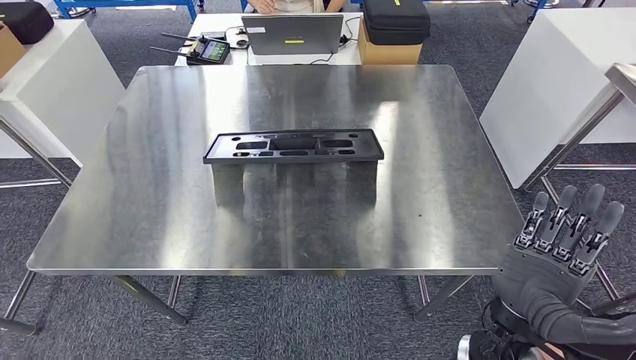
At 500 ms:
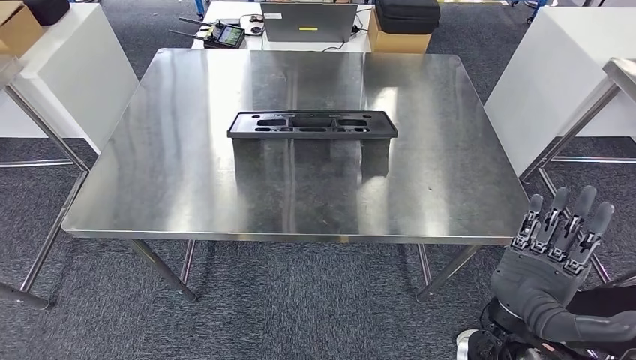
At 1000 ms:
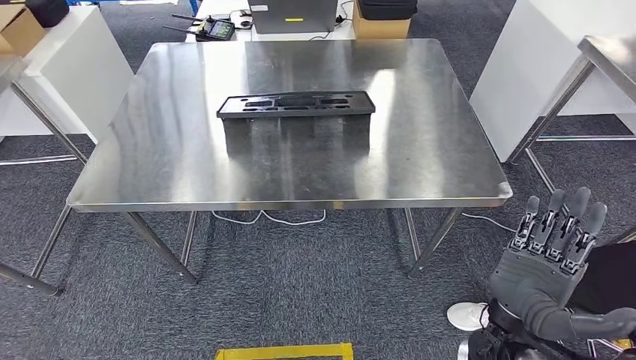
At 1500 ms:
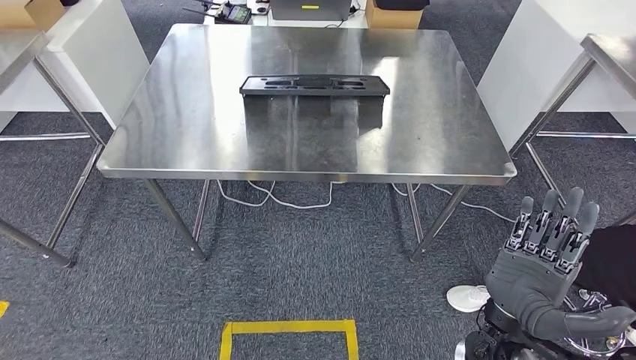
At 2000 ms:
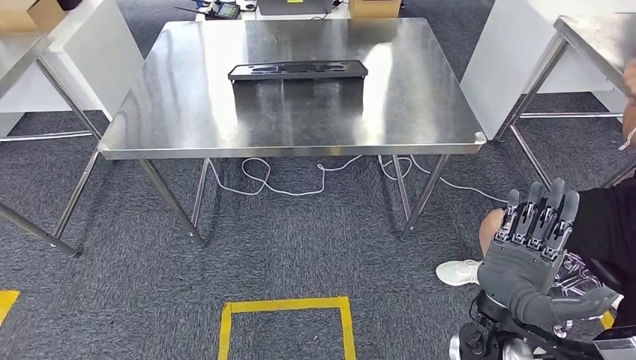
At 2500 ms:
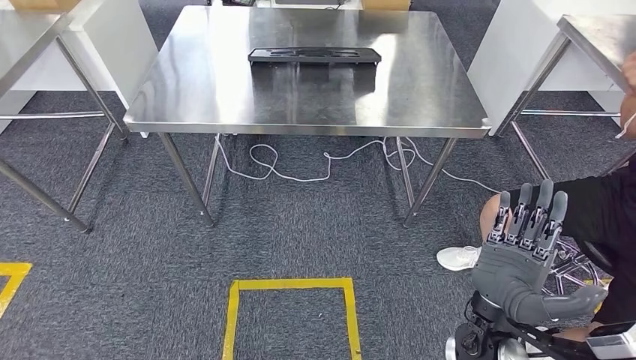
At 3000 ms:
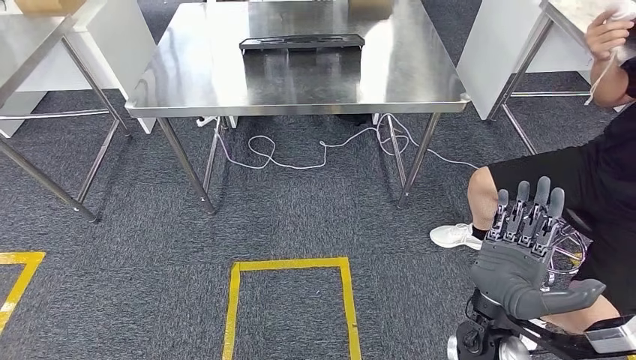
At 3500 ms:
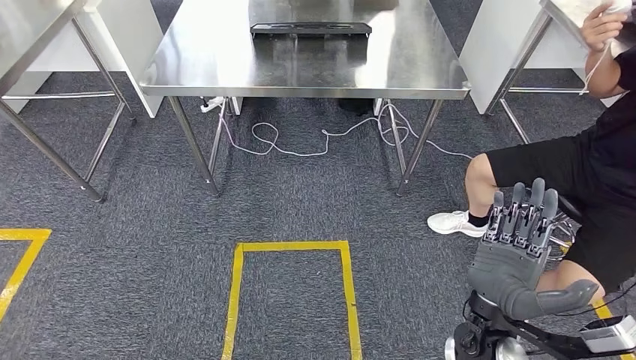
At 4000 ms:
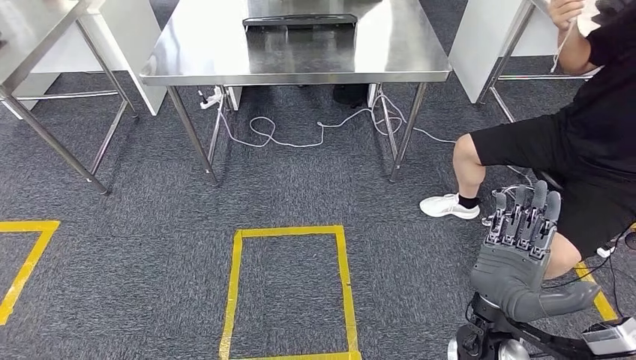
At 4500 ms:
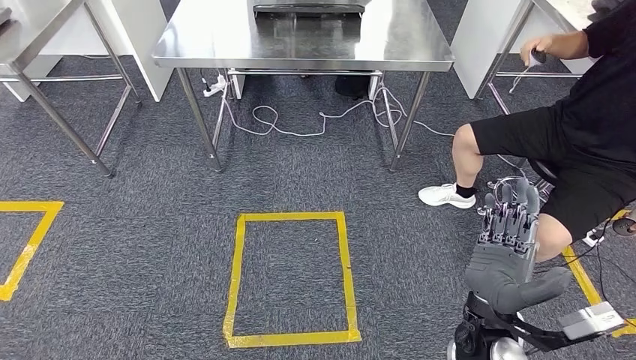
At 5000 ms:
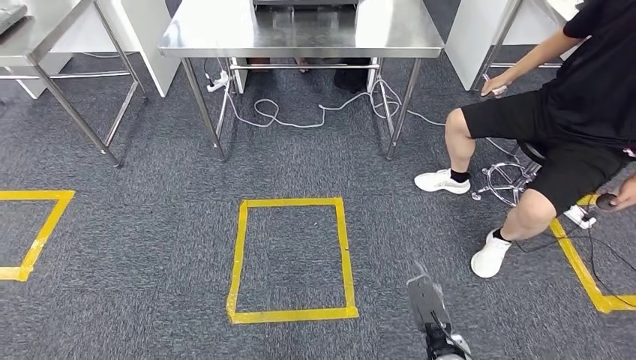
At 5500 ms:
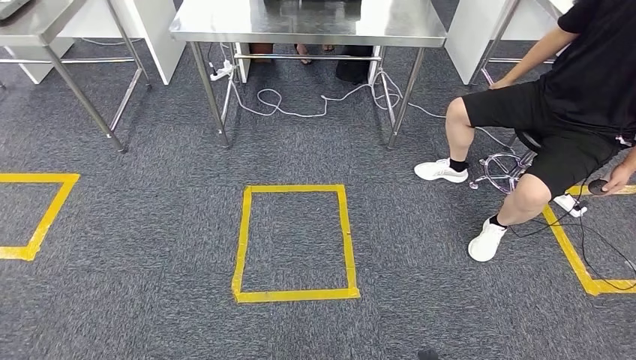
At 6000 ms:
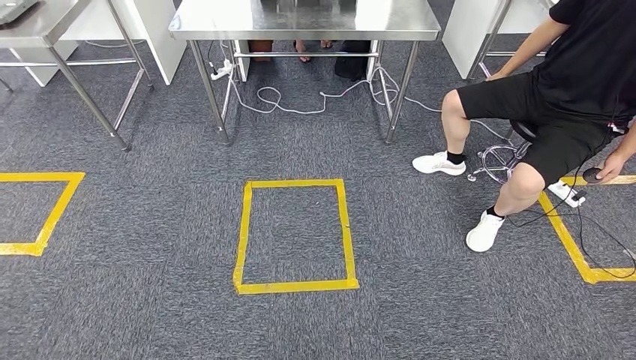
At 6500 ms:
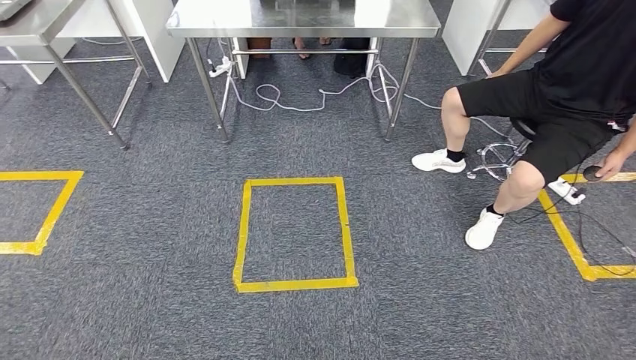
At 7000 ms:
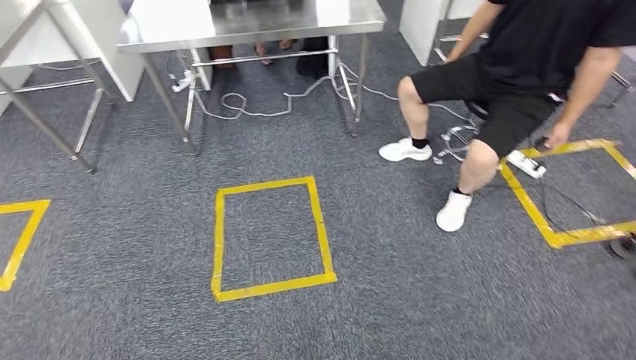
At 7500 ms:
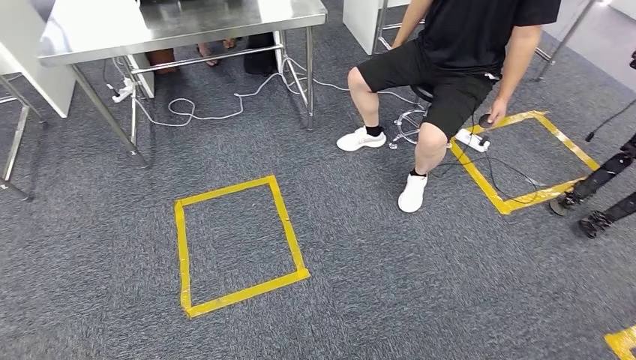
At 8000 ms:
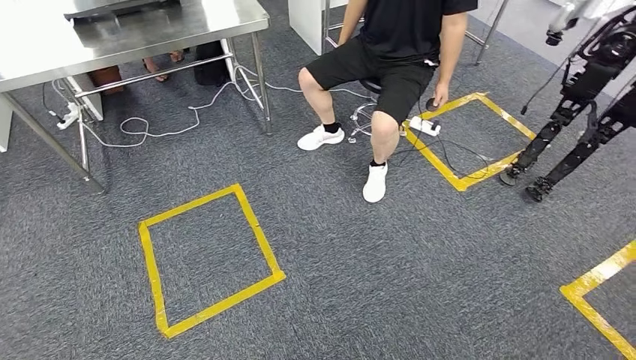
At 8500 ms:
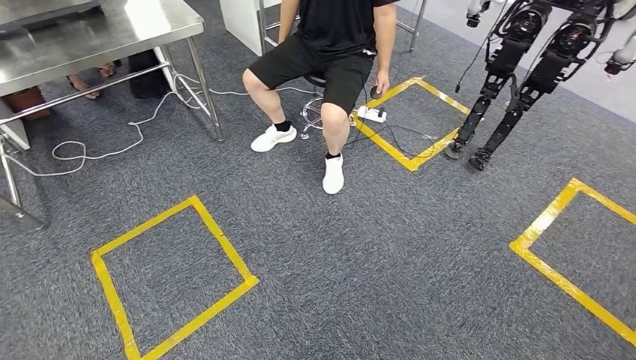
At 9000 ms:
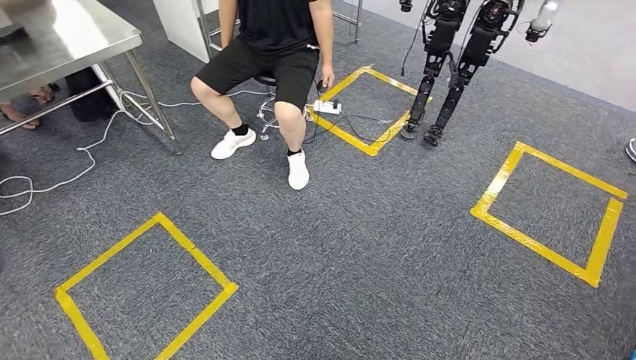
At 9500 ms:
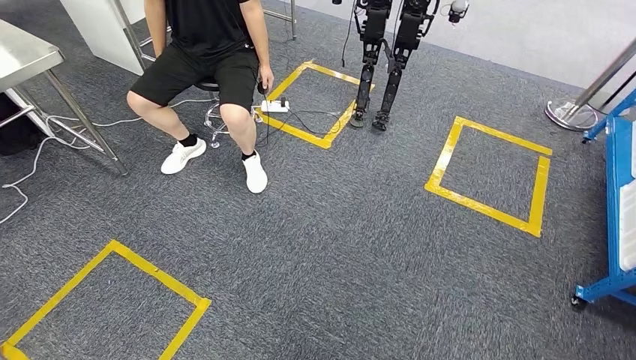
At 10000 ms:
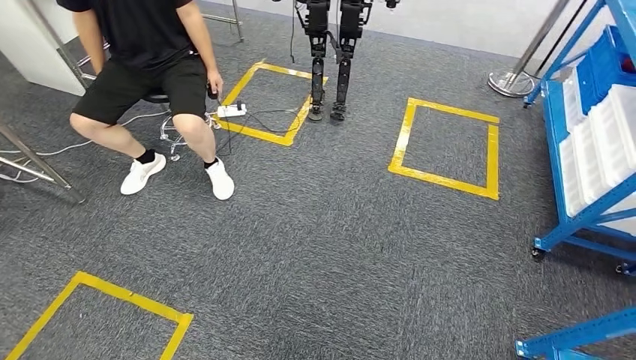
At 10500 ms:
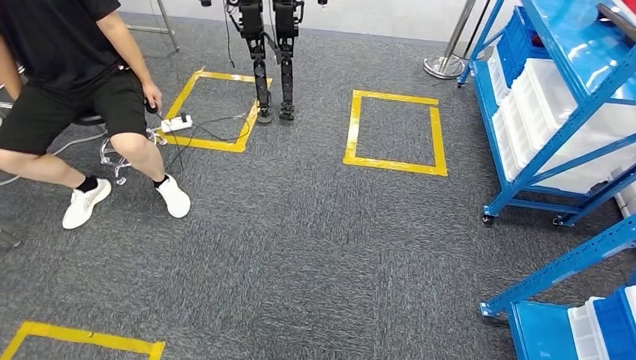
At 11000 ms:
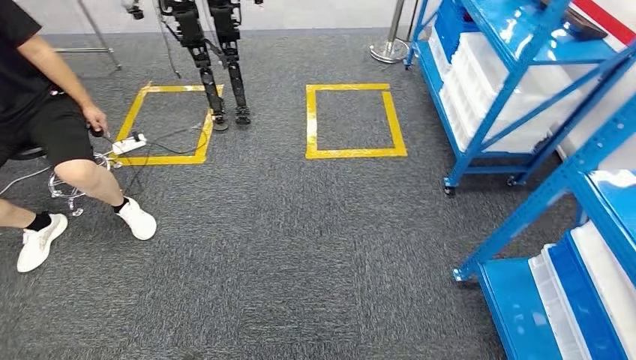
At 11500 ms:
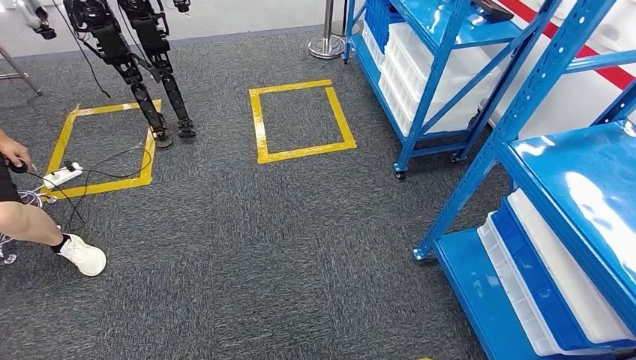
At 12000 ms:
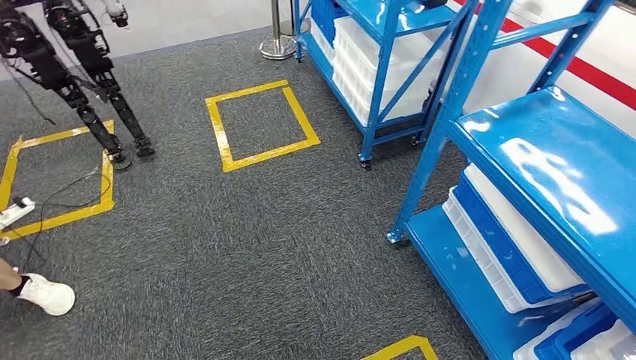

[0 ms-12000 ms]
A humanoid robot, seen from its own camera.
Step, 0 ms to 3500 ms: Insert the large material into the corresponding slot on the workbench.

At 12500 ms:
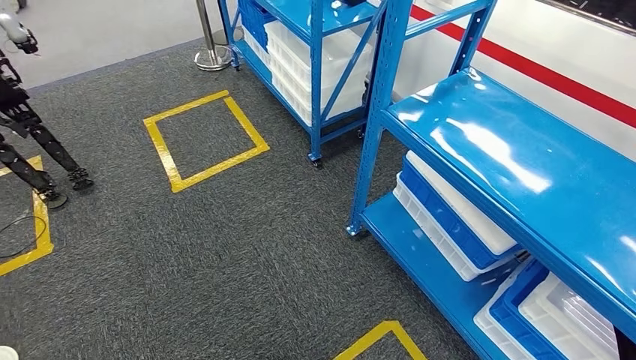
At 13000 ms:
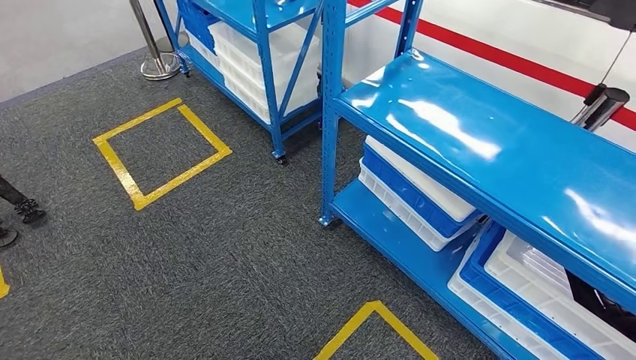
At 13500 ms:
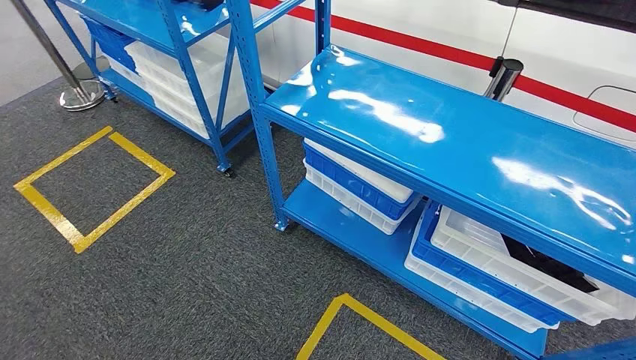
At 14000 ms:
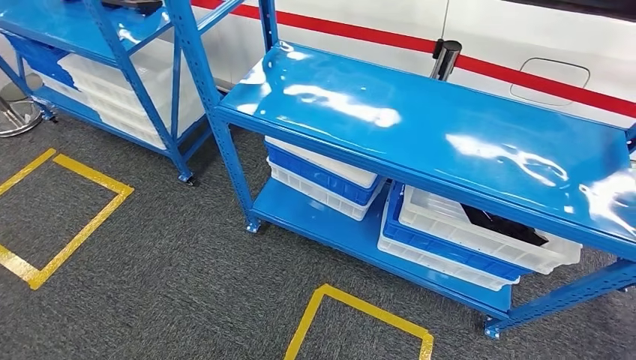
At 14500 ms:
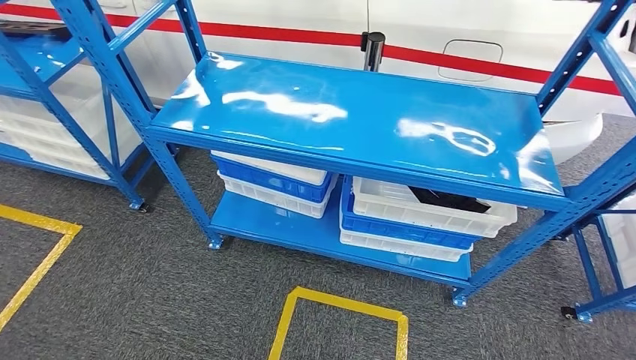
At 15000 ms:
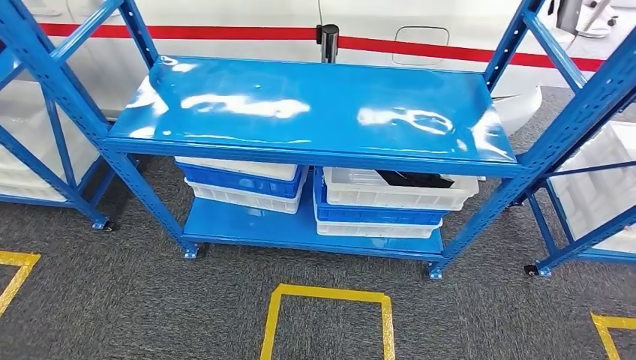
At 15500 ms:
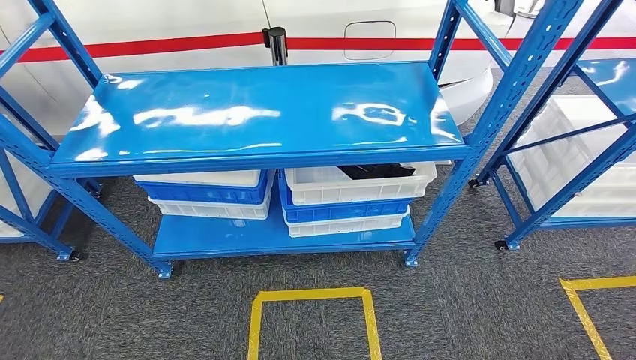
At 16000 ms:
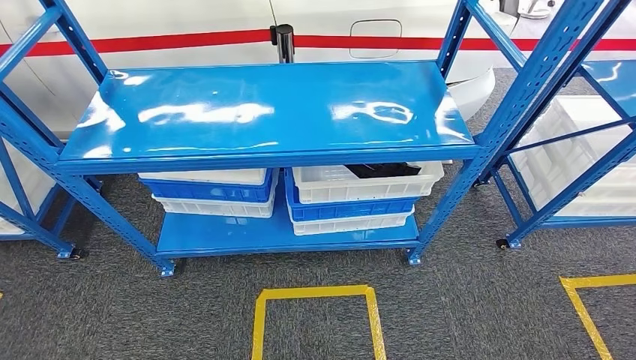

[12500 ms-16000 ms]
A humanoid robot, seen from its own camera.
Step, 12500 ms to 16000 ms: Move to the initial position of the shelf.
